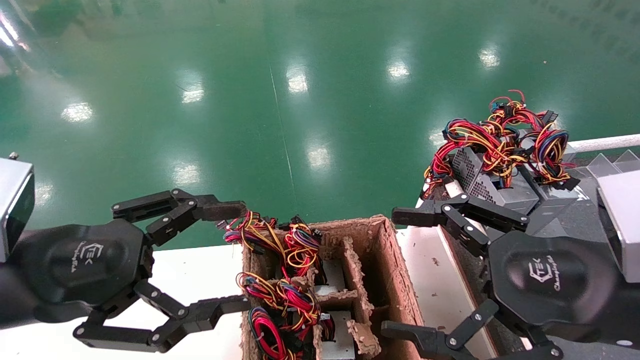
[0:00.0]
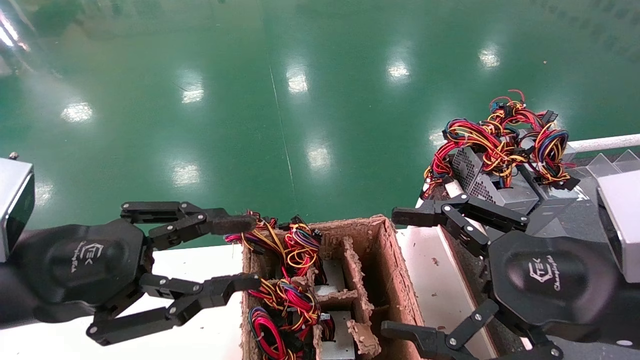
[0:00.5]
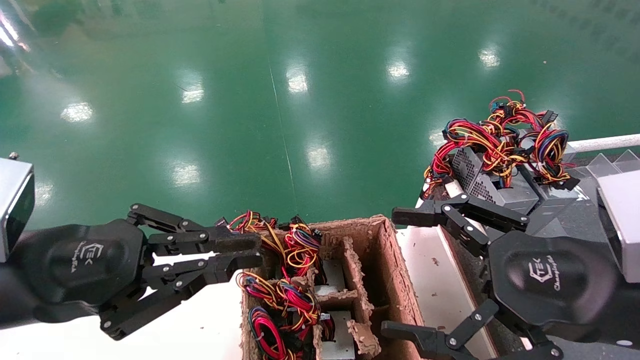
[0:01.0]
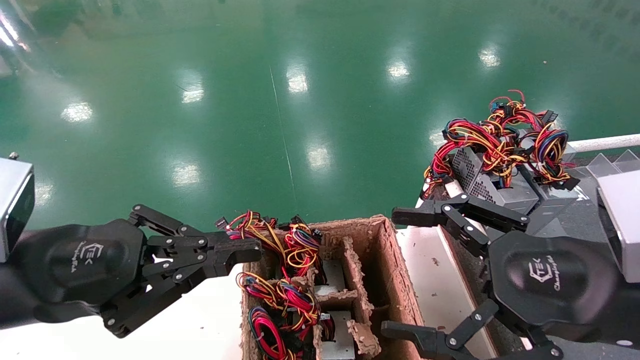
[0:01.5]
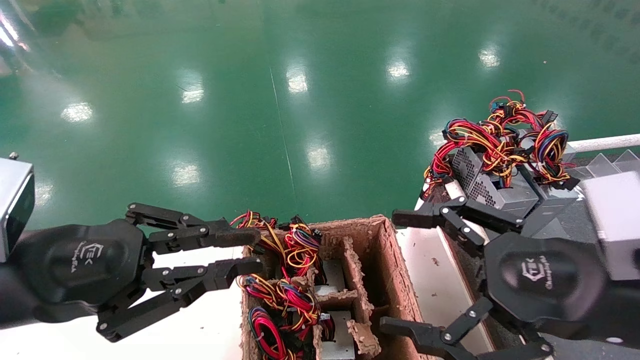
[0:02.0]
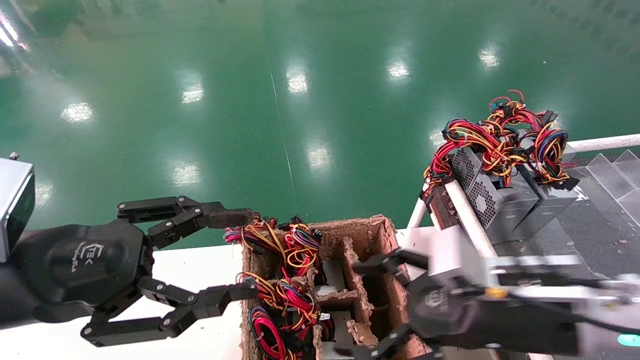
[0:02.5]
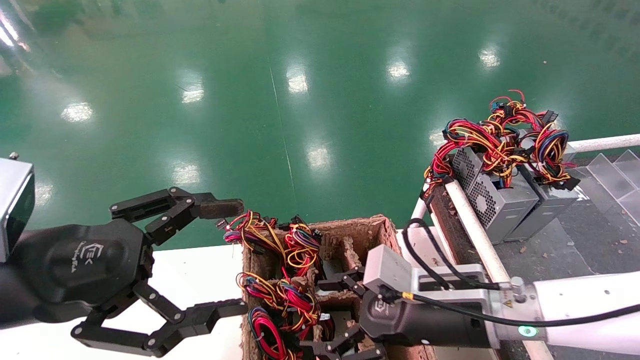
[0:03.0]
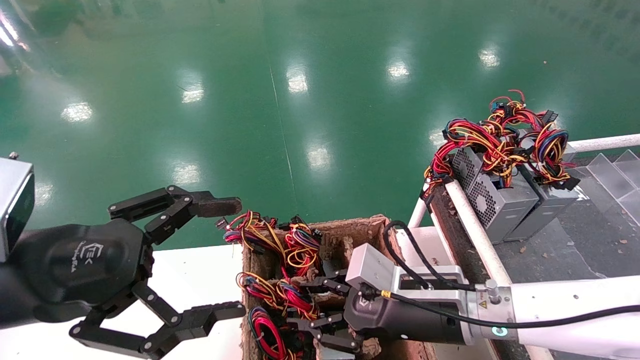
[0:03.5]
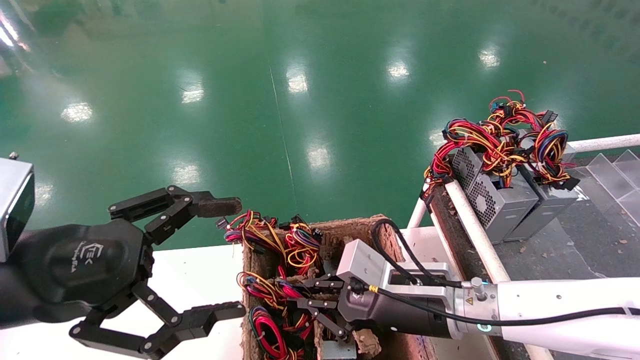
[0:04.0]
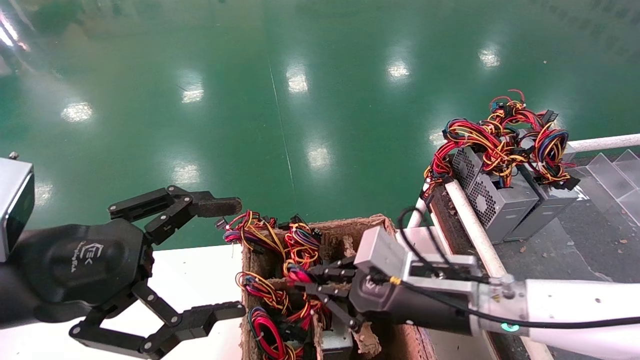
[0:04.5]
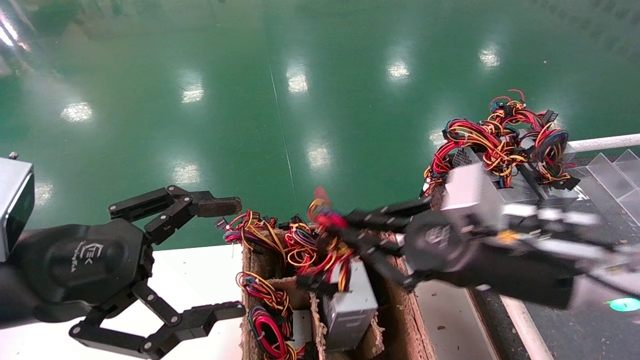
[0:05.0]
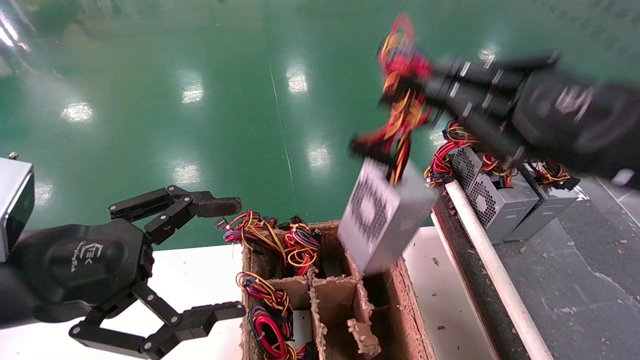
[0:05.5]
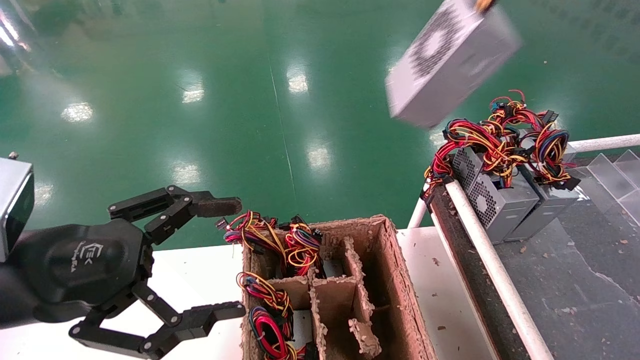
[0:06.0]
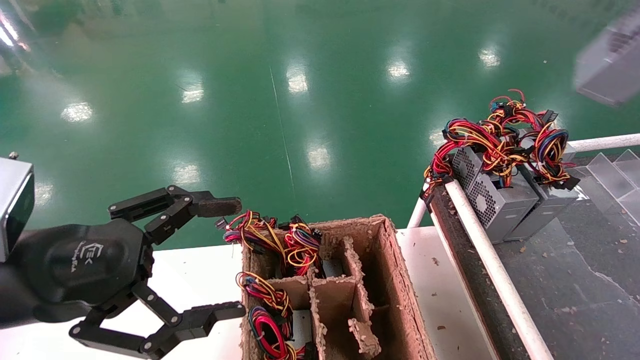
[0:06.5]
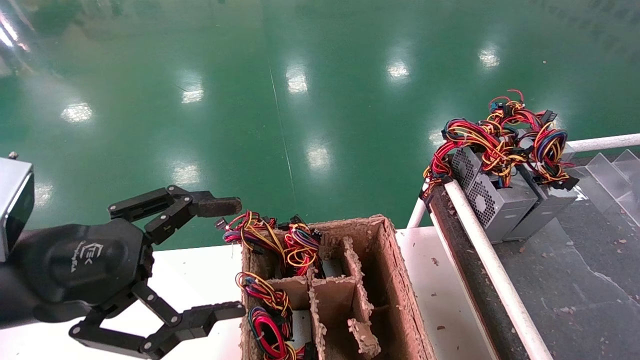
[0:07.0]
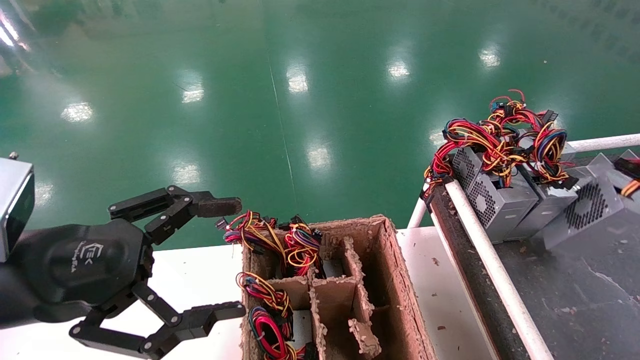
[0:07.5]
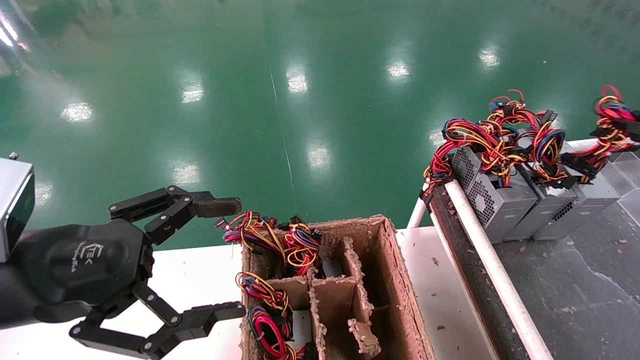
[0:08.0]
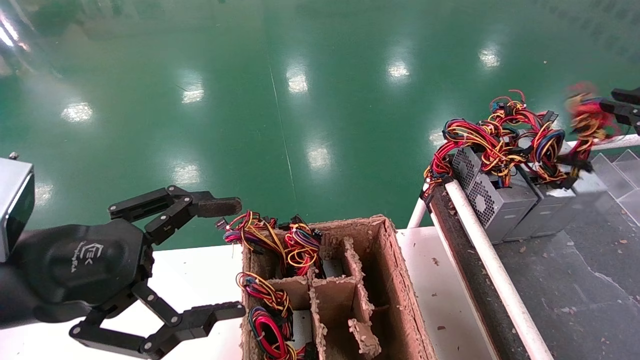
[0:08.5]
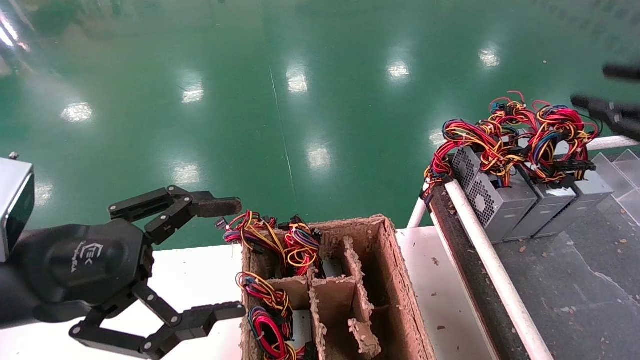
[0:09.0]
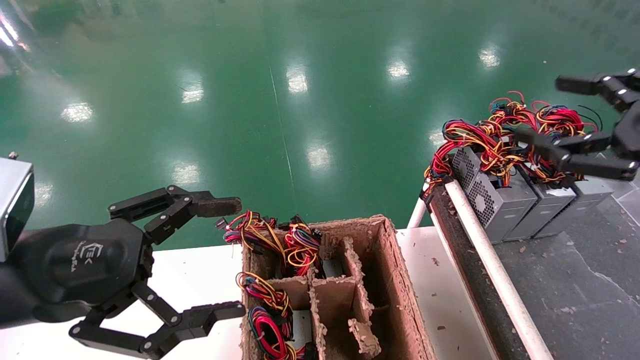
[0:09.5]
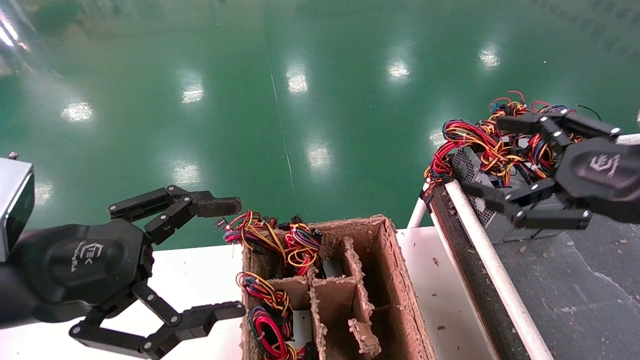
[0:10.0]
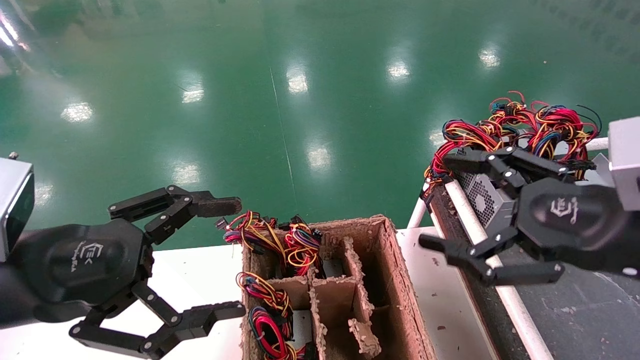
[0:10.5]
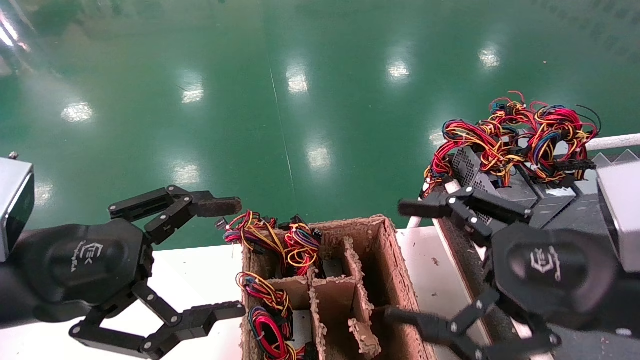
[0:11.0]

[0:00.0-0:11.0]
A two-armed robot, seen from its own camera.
Step, 0:02.5 to 0:04.0: Grab and lift the power supply from the large box.
Step, 0:04.5 to 0:08.5: Place the power supply on the operating table.
0:00.0 to 0:02.0: The left gripper closes its fingers.
0:02.0 to 0:03.5: The right gripper heads to the left, forward and downward, covering roughly 20 cm, and closes up. Meanwhile the left gripper opens its fingers.
0:03.5 to 0:05.5: The right gripper is displaced upward, to the right and backward by some 25 cm, and closes up.
0:05.5 to 0:07.5: The right gripper moves to the right, approximately 20 cm.
0:07.5 to 0:09.0: The right gripper is displaced to the left by about 5 cm.
0:09.0 to 0:11.0: The right gripper shifts about 20 cm to the left and downward, and opens up.

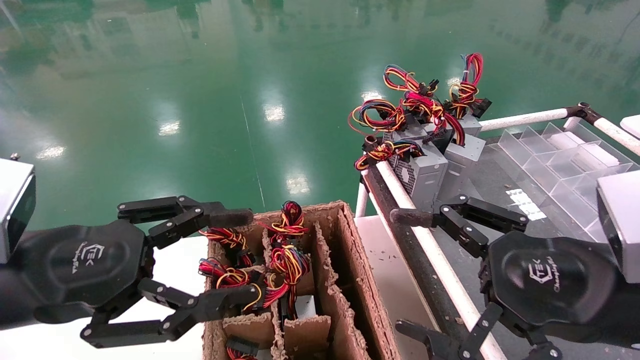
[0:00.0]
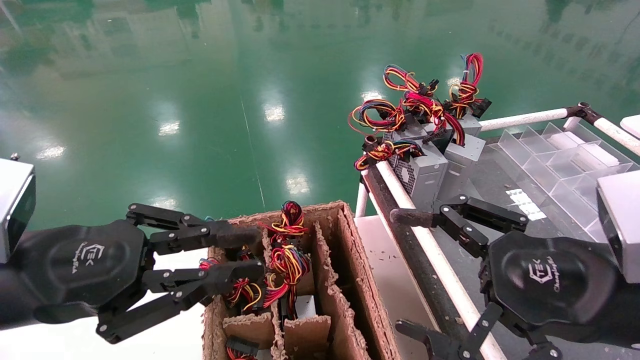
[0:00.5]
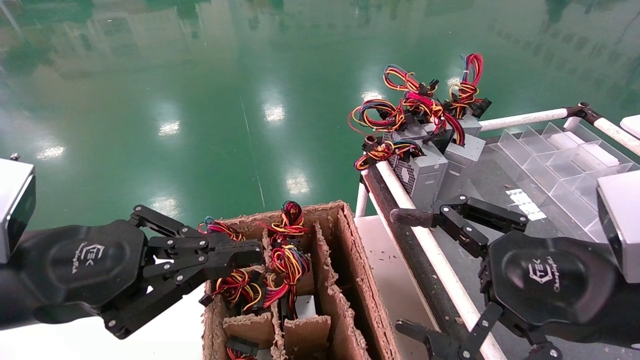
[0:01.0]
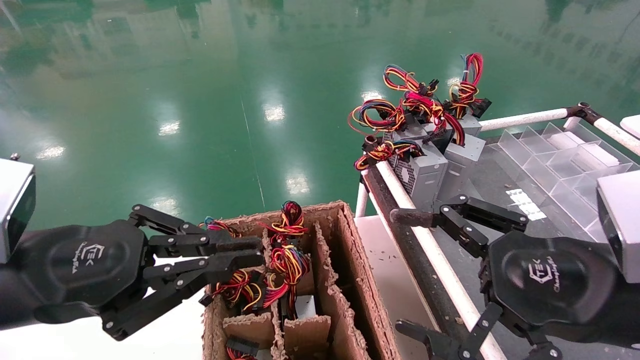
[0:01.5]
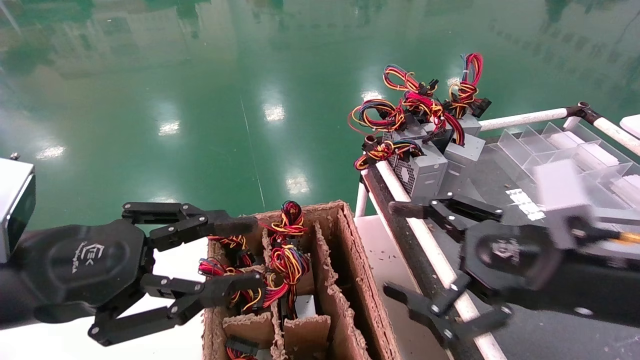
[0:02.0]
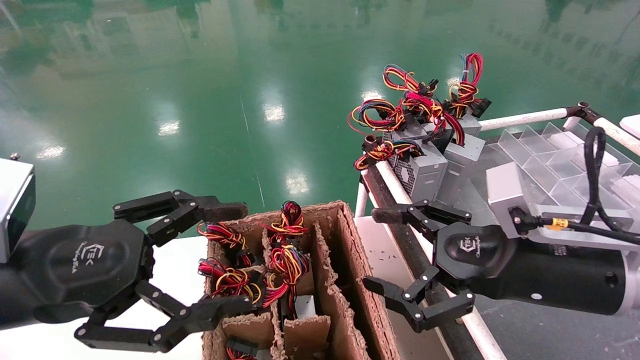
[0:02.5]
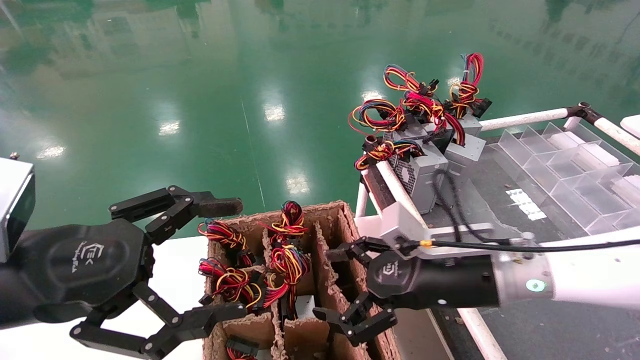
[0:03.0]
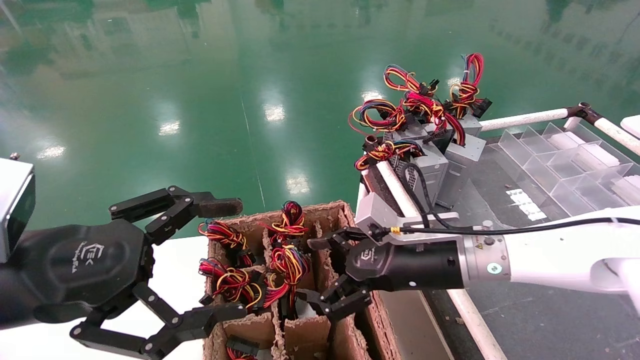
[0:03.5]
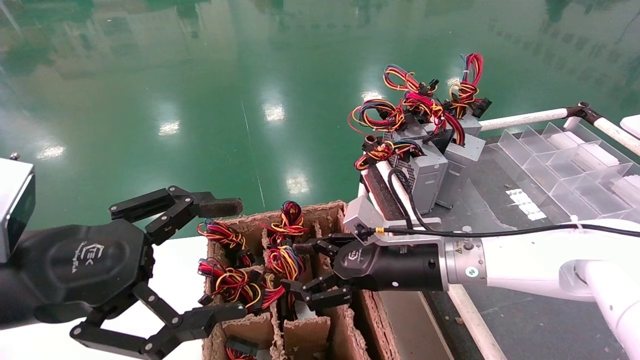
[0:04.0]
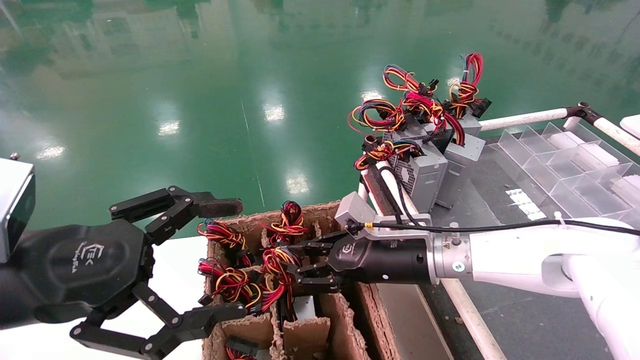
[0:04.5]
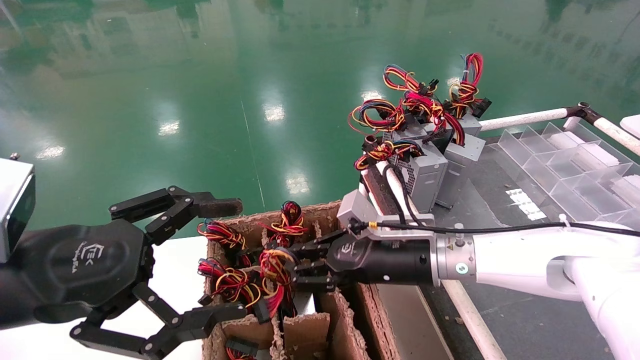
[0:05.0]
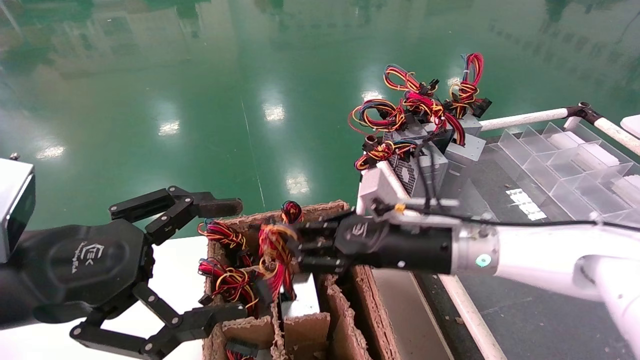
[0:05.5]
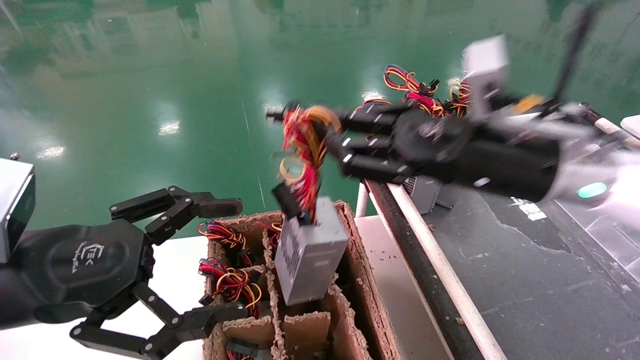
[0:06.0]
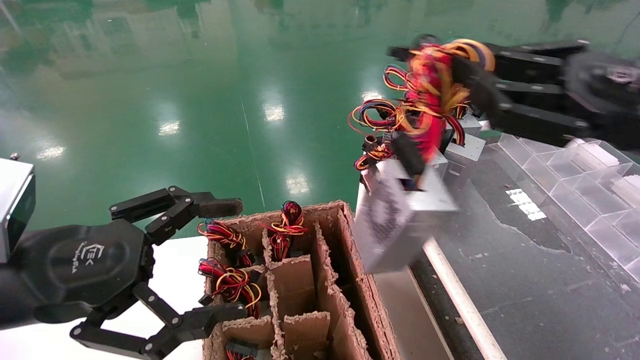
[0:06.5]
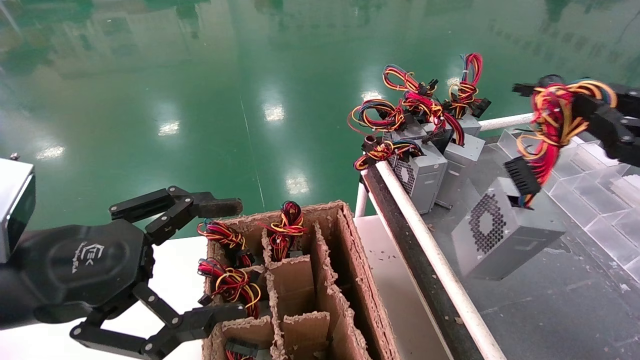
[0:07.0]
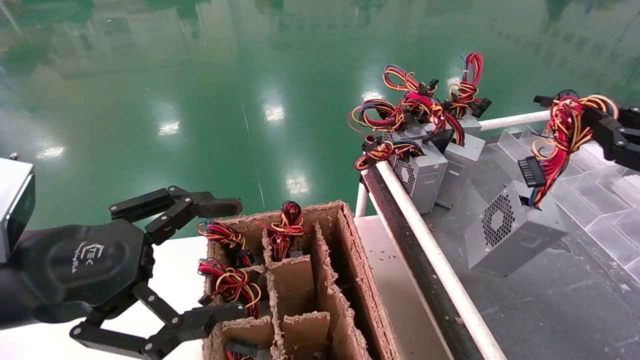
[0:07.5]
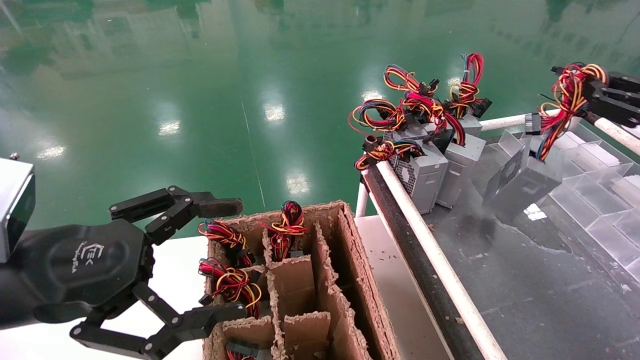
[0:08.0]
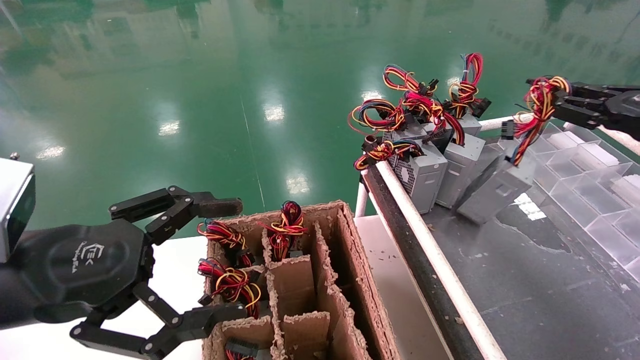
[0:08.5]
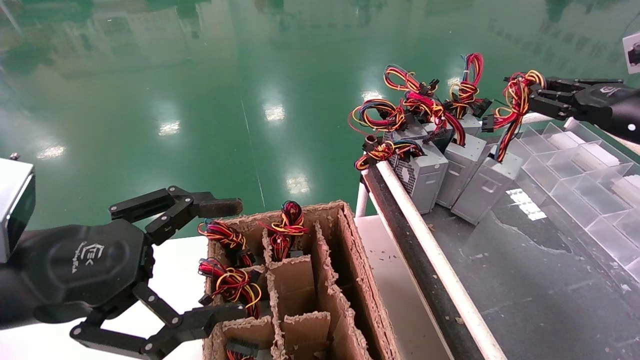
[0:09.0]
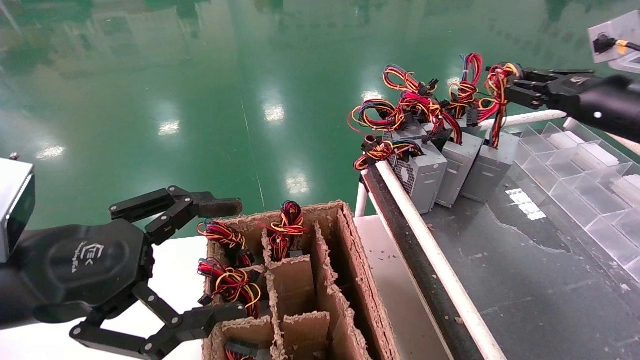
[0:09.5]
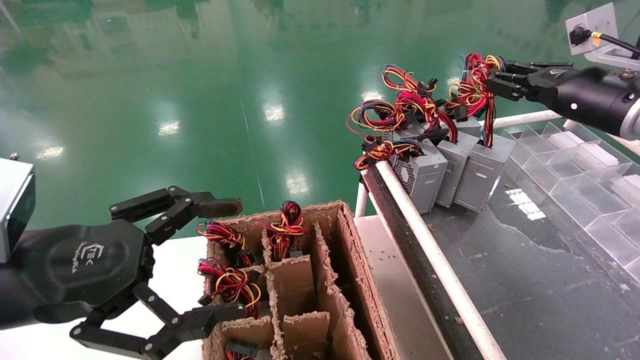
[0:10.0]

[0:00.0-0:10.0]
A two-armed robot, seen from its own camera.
Step, 0:01.0 to 0:05.0: Grab and lift the power supply from the large box.
0:00.0 to 0:02.0: The left gripper closes.
0:02.0 to 0:04.0: The right gripper heads forward, to the left and downward, covering approximately 20 cm. The left gripper opens.
0:04.0 to 0:06.0: The right gripper is displaced upward and to the right by some 15 cm, and closes up.
0:06.0 to 0:08.0: The right gripper travels to the right by some 25 cm.
0:08.0 to 0:10.0: The right gripper moves forward and to the left, approximately 15 cm.
